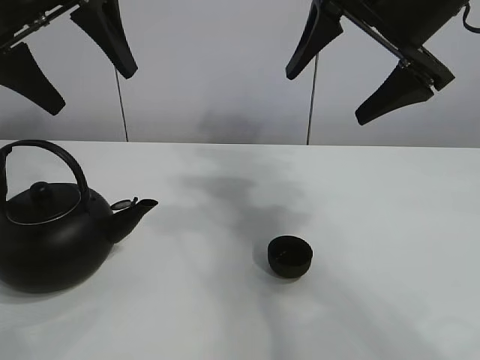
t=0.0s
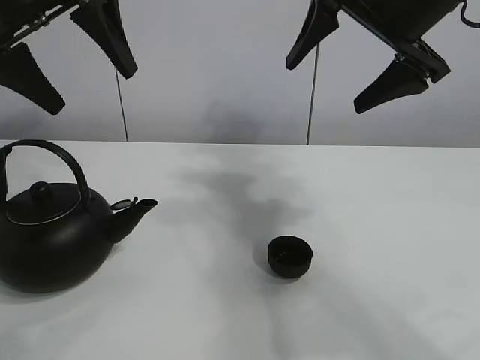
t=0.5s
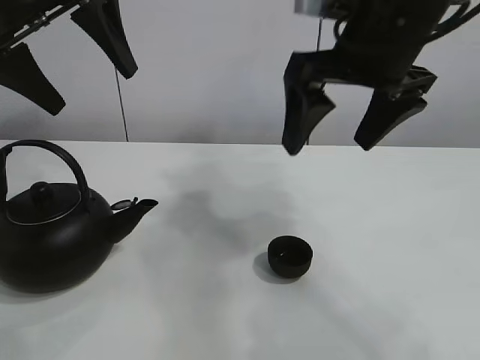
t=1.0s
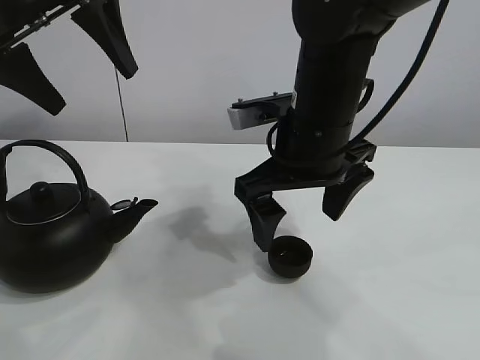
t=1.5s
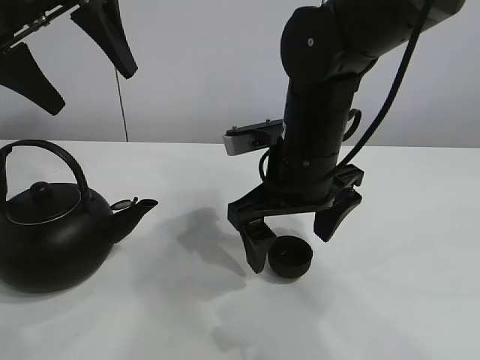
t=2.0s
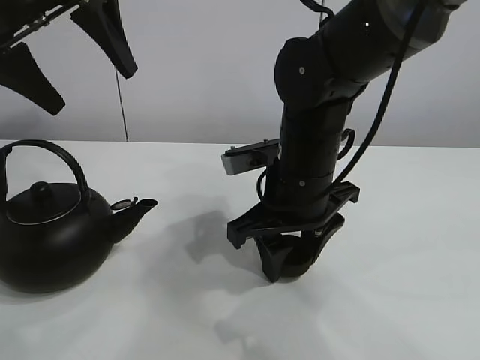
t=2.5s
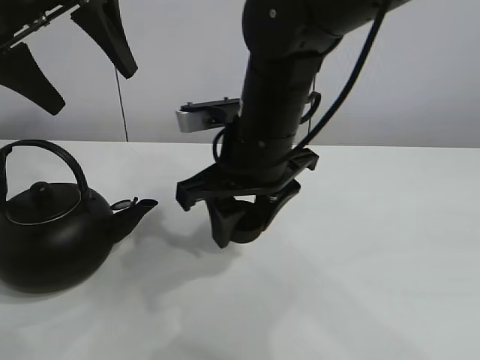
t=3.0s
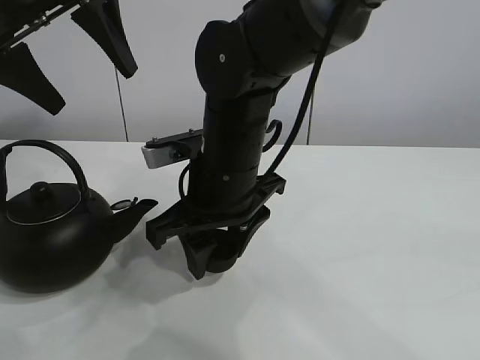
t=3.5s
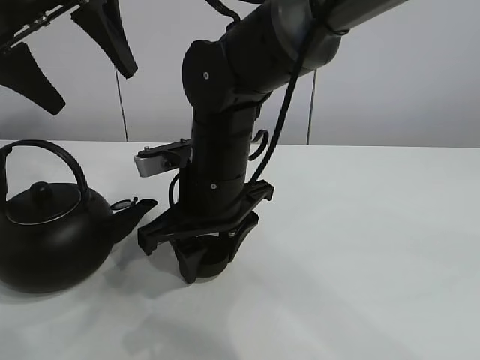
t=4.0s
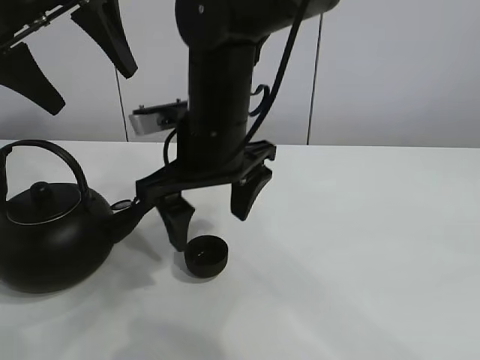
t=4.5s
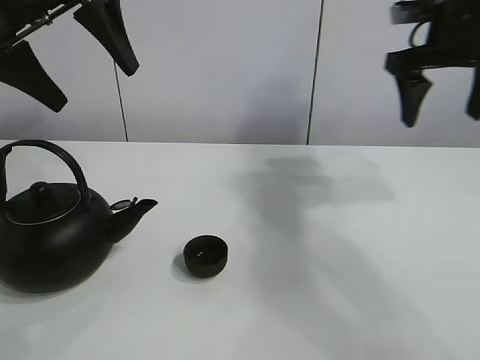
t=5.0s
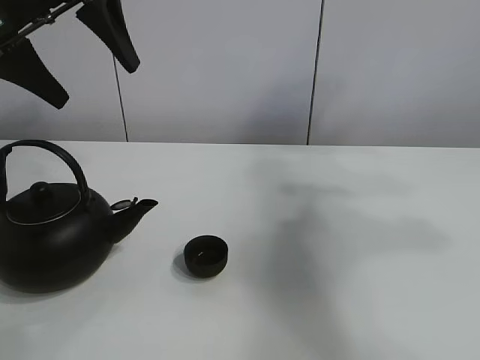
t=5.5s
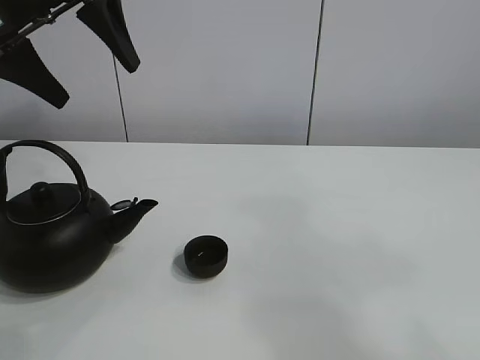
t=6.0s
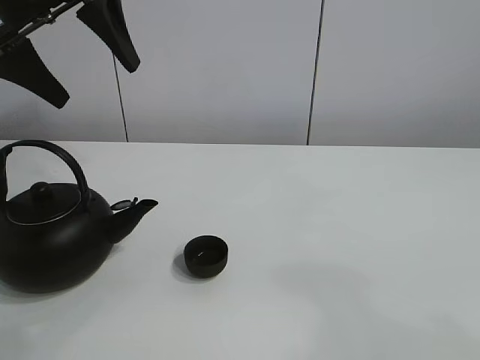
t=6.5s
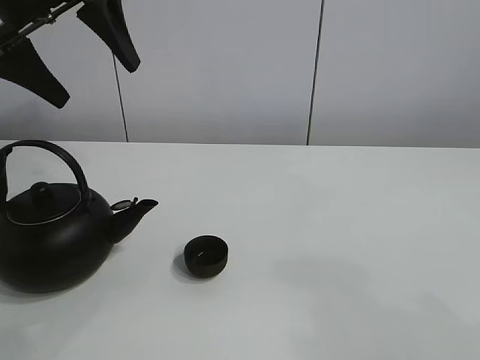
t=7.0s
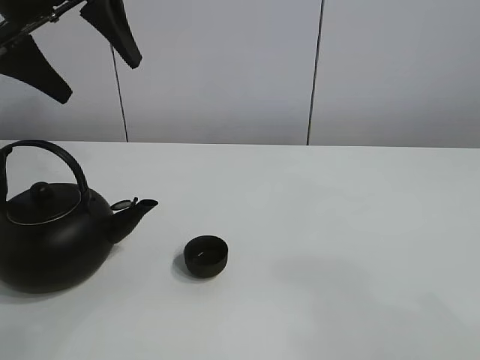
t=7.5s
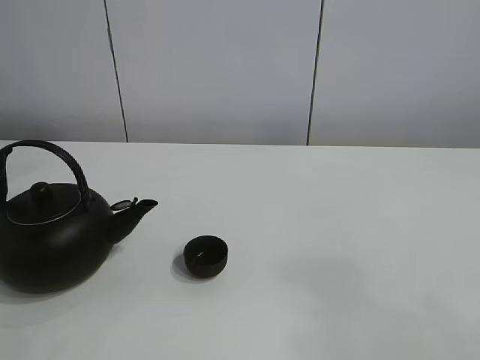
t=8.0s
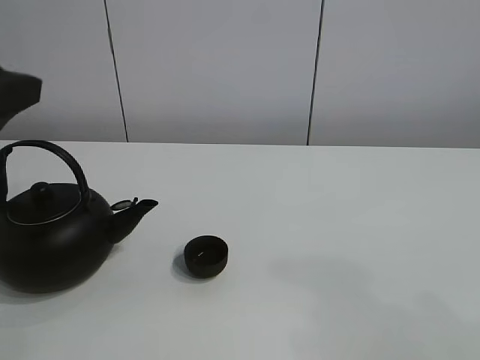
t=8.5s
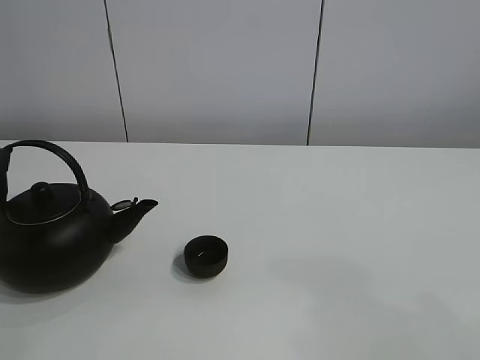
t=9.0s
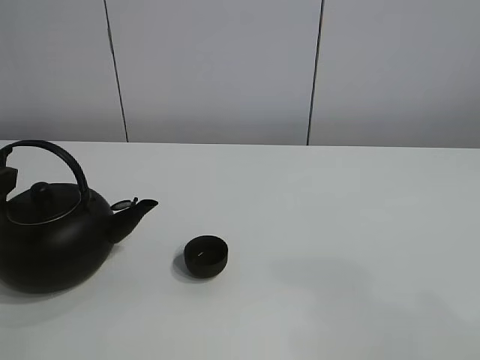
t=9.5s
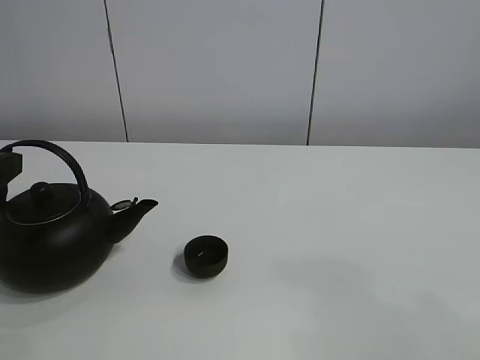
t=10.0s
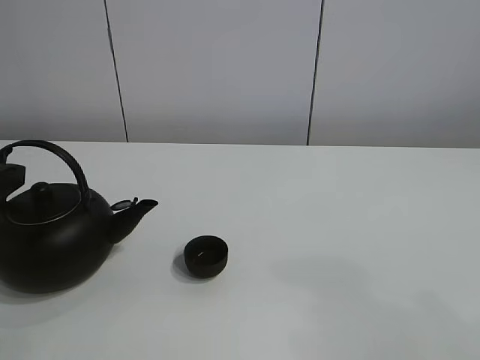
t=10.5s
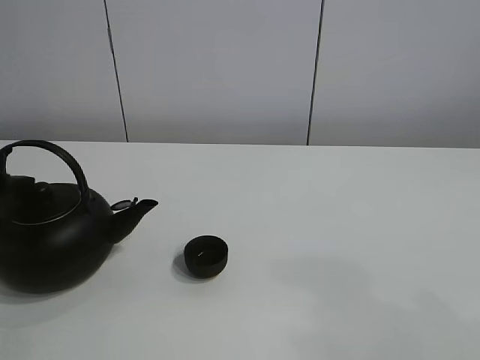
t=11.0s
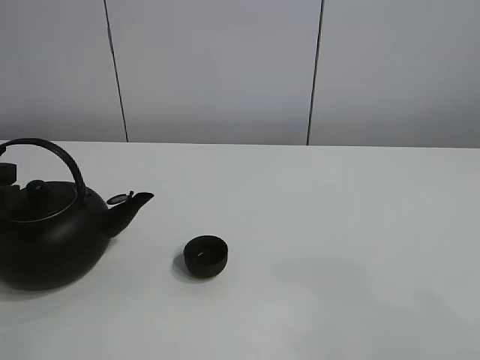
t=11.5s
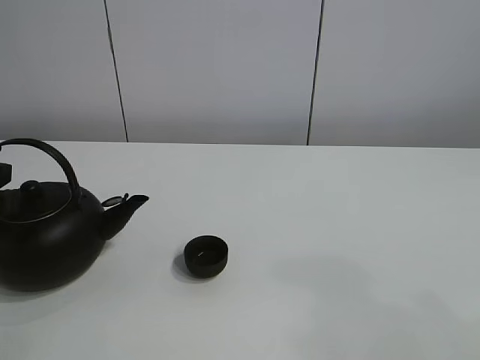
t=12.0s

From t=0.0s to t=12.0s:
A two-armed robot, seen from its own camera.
Task of the whole recording: pour tea into the teacup.
Step, from t=0.0s to t=2.5s: Pick up the teacup with the right gripper.
Step, from t=3.0s to t=4.0s: Place the teacup in the center of view with the right gripper.
From t=2.0s to t=4.0s: The right gripper moves to the left, some 10 cm, and closes up.
From t=4.0s to t=6.0s: The right gripper shifts some 50 cm backward, to the right and upward, and opens.
From t=6.0s to t=8.0s: The left gripper goes about 10 cm upward and backward.
From t=10.0s to t=12.0s: The left gripper closes its fingers.

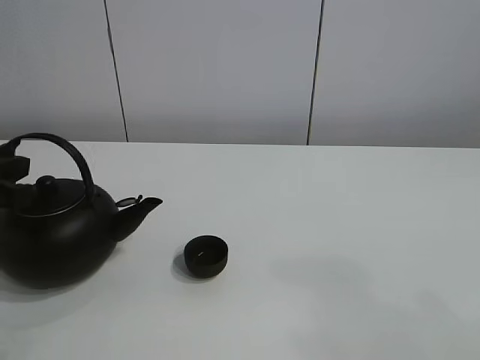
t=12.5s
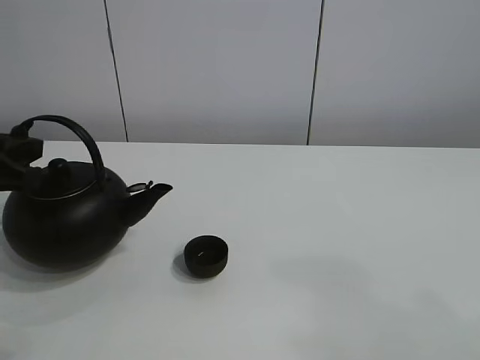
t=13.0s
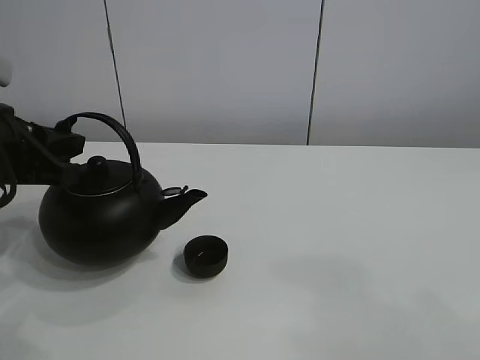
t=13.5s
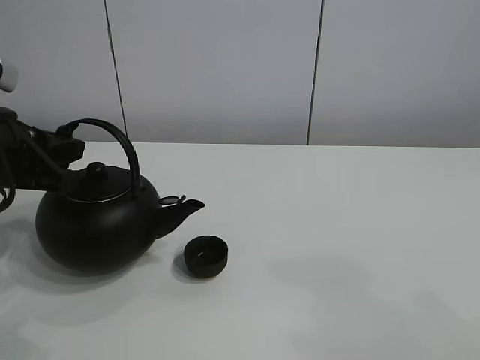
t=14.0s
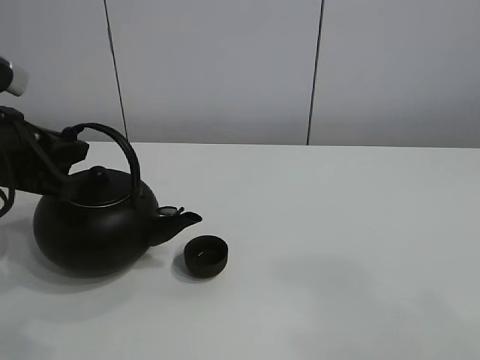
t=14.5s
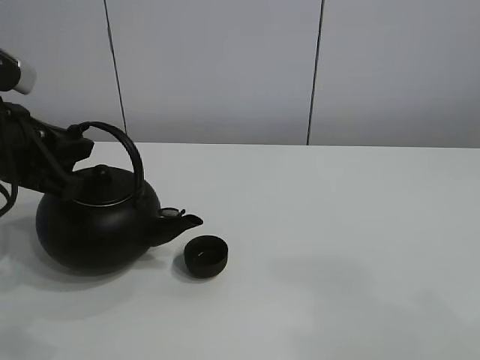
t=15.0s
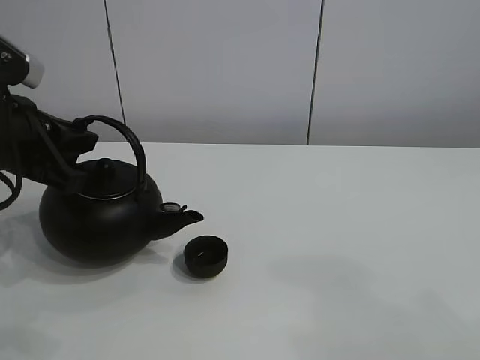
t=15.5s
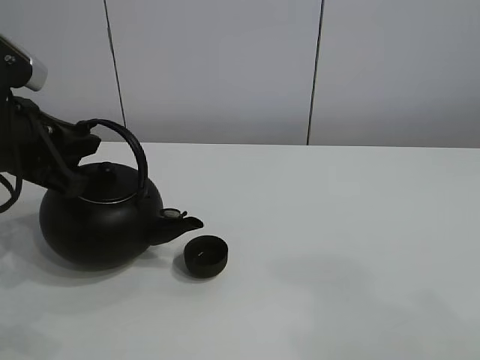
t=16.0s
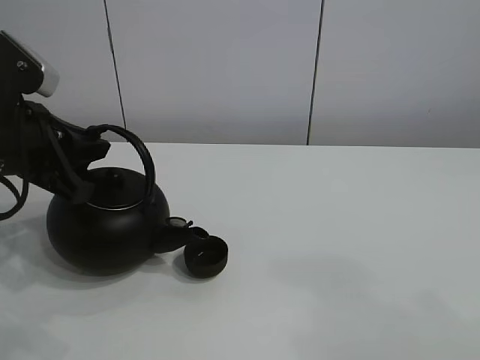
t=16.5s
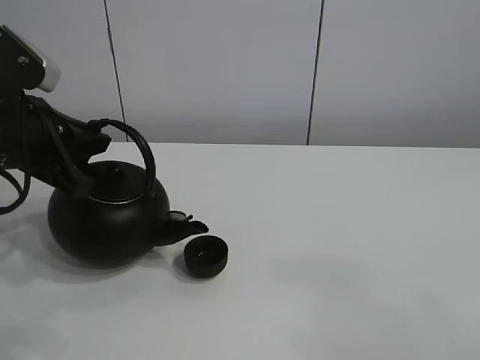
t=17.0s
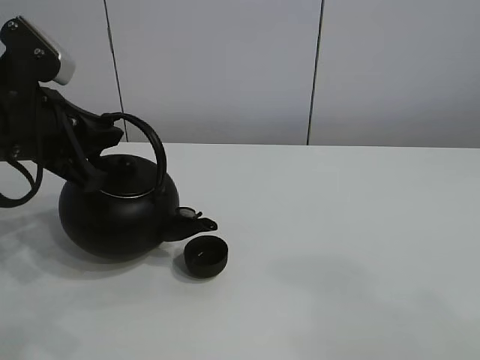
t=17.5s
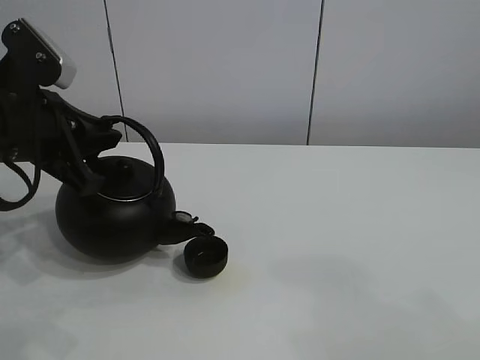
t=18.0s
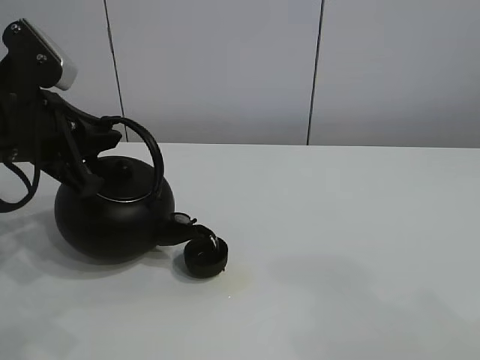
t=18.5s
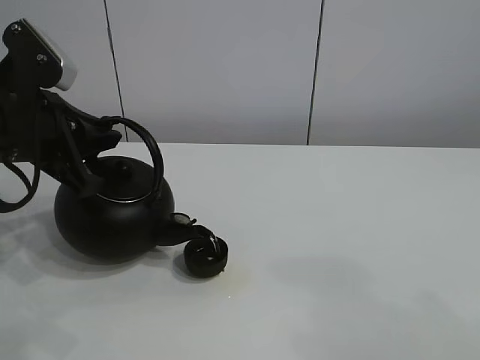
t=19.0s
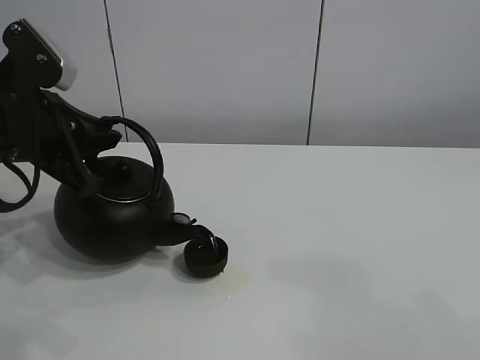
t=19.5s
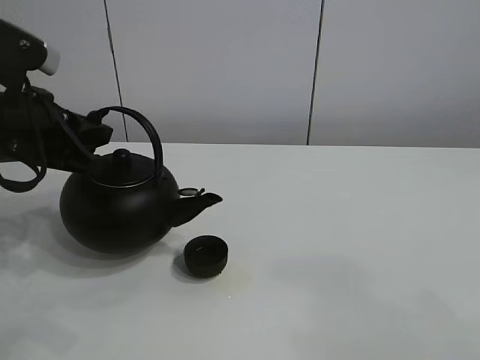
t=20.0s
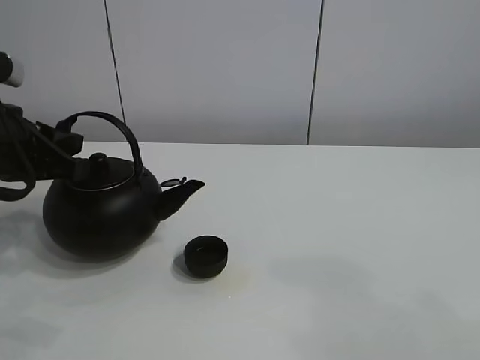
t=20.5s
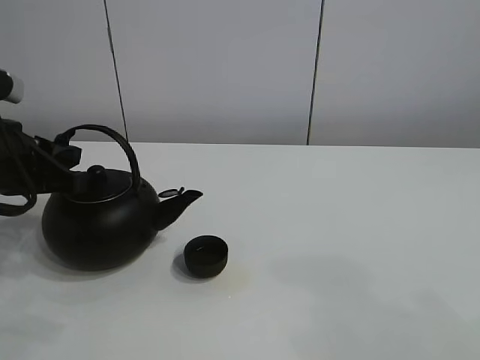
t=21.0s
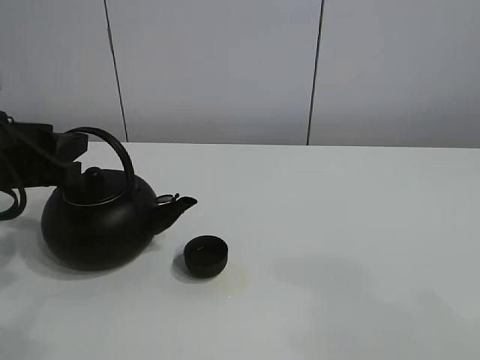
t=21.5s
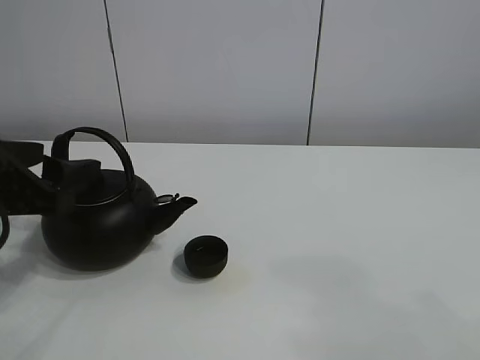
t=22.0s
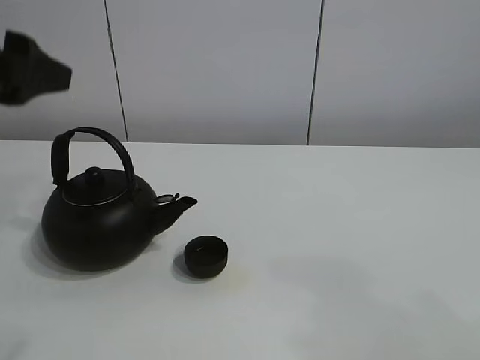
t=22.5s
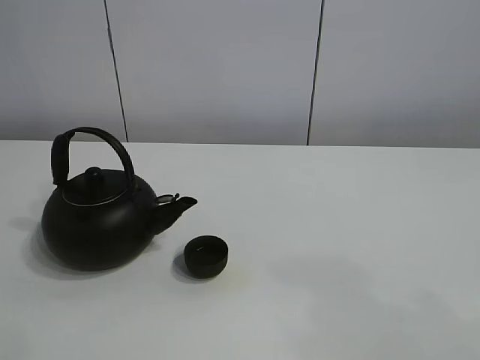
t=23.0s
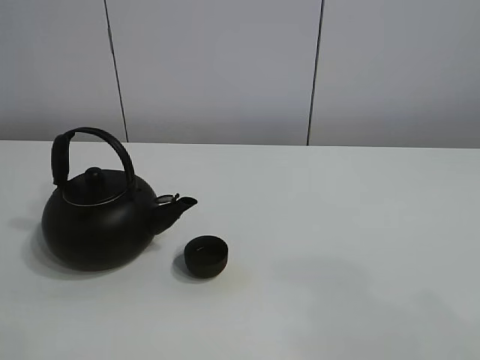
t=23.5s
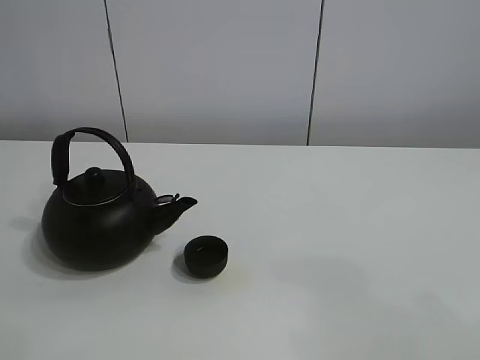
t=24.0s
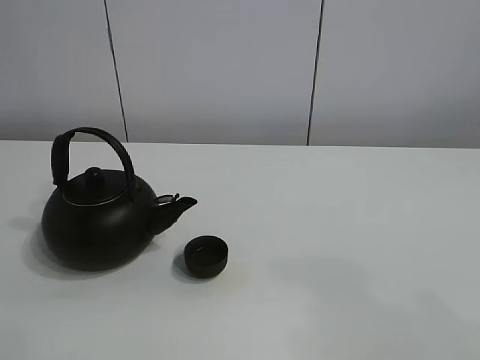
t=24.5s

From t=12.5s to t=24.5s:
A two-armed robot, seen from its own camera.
Task of the whole recording: pour tea into the teacup.
Step, from t=13.0s to t=19.5s: Pour tea into the teacup with the left gripper.
From t=12.5s to t=14.5s: The left gripper ends up some 5 cm from where it was.
From t=14.5s to t=18.5s: The grippers stay close to where they were, moving slightly.
From t=20.5s to t=22.5s: The left gripper goes roughly 10 cm upward, and opens up.
From t=22.5s to t=24.5s: The left gripper is displaced backward by about 25 cm.

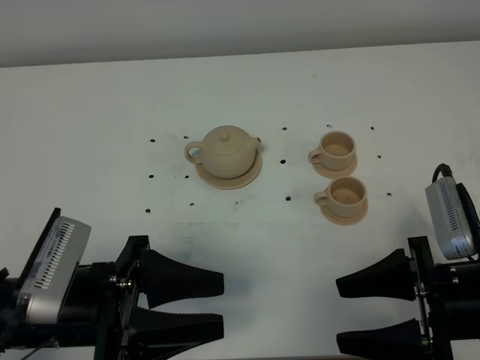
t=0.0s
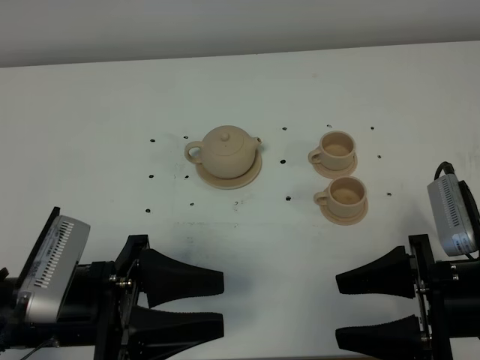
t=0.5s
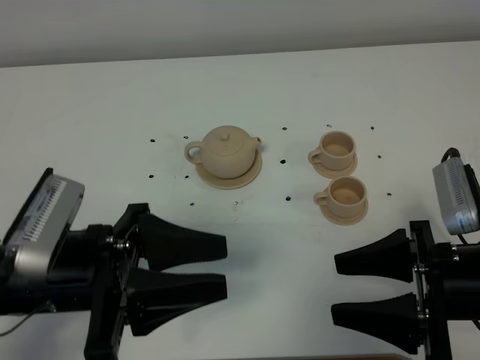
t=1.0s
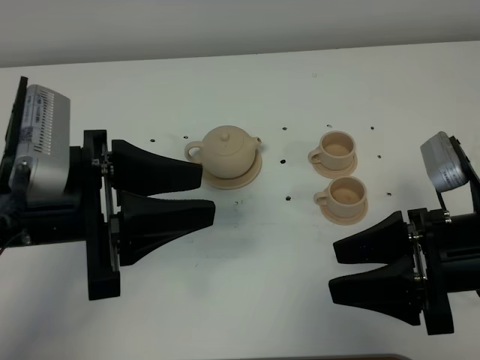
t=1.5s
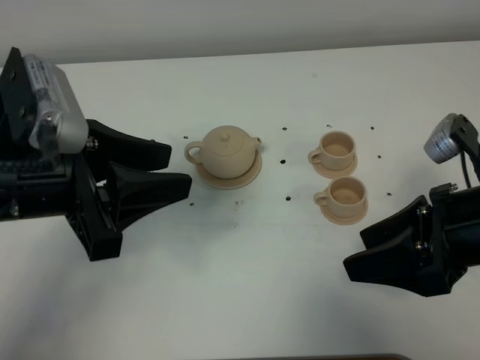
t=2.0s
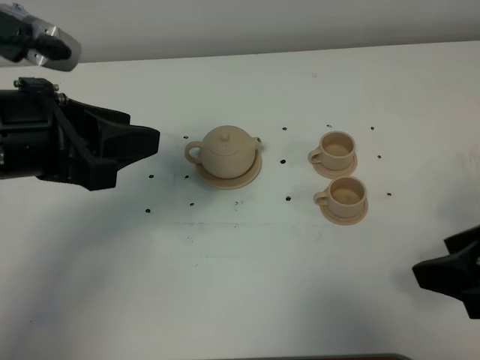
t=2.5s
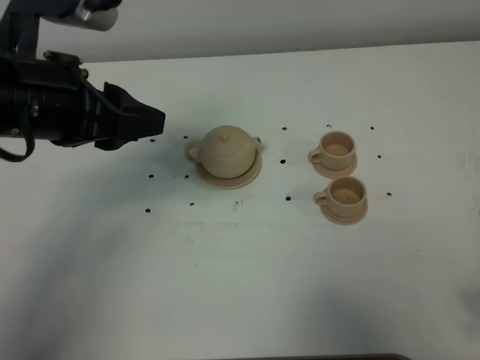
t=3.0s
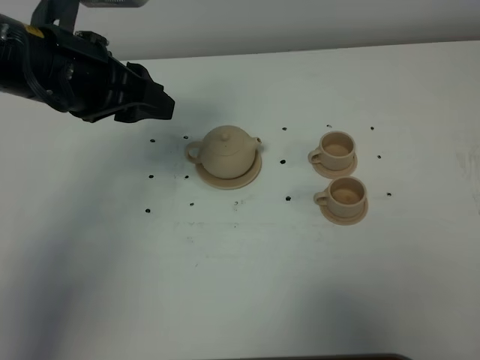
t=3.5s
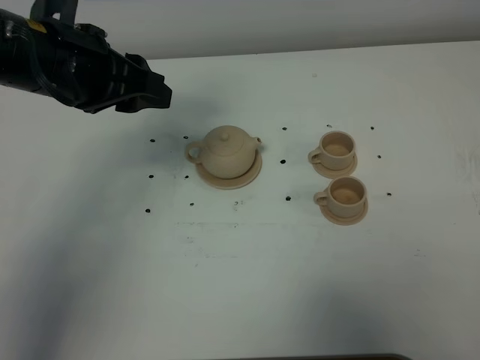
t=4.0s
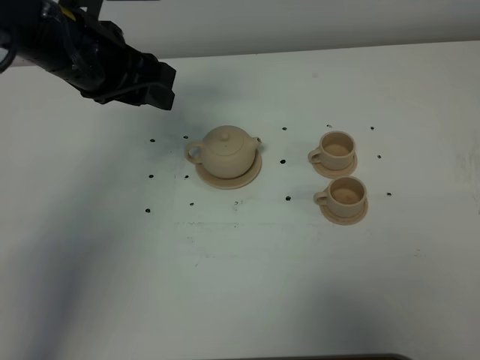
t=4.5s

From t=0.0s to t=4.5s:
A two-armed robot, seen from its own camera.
Task of the whole recording: grasp the brown teapot and pour the tea into the two brown teacups one by one, put the brown teapot back in its original place.
From t=0.0s to t=2.0s: The left gripper goes roughly 15 cm upward and forward. The right gripper travels upward by some 5 cm.
From t=2.0s to t=4.5s: The left gripper travels forward by roughly 15 cm. The right gripper shifts some 20 cm backward and to the right.
